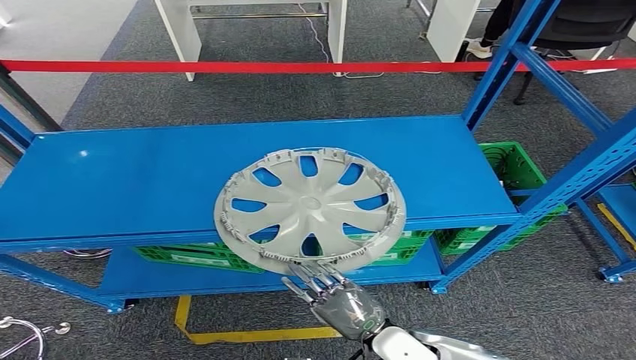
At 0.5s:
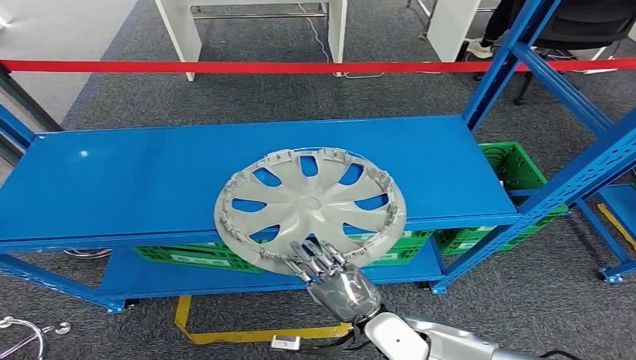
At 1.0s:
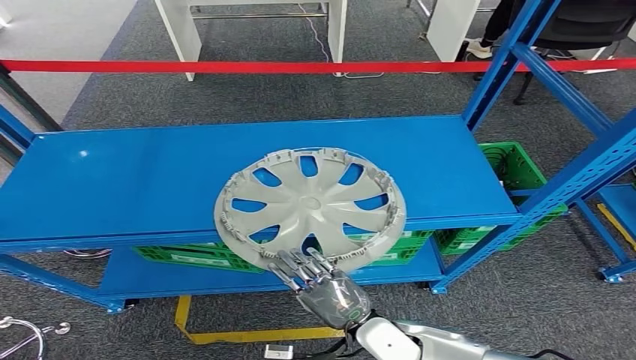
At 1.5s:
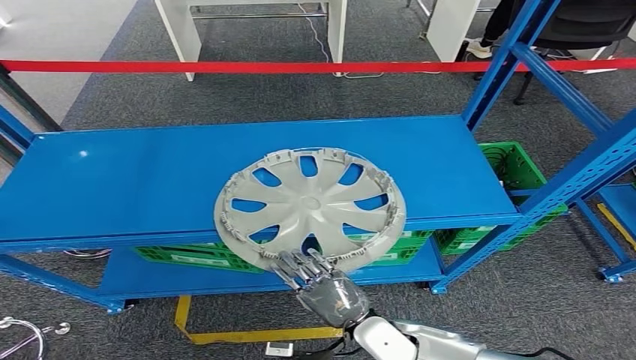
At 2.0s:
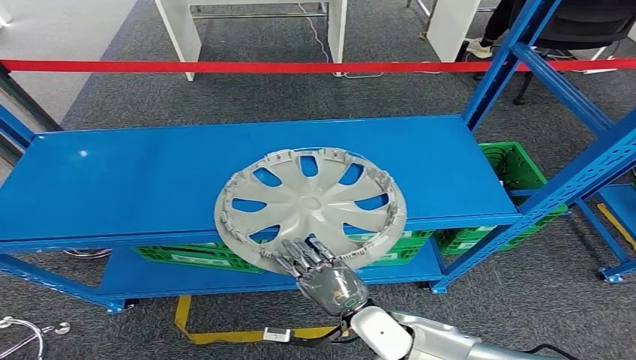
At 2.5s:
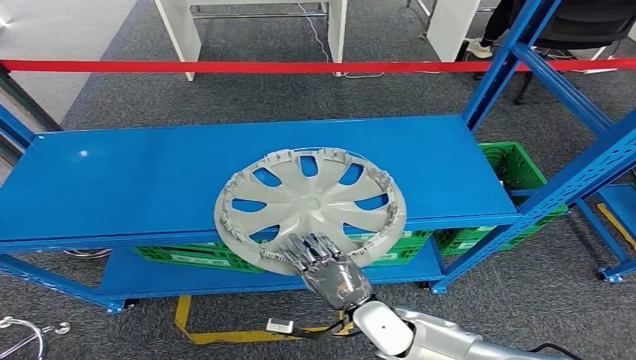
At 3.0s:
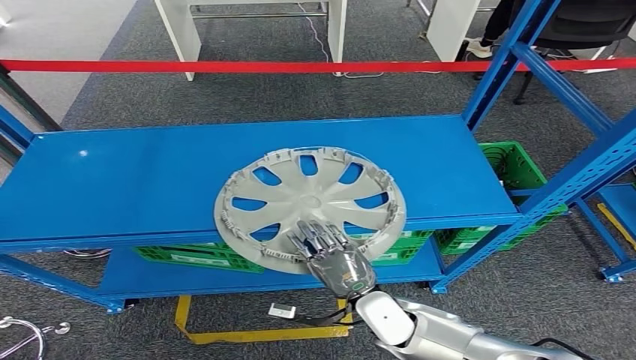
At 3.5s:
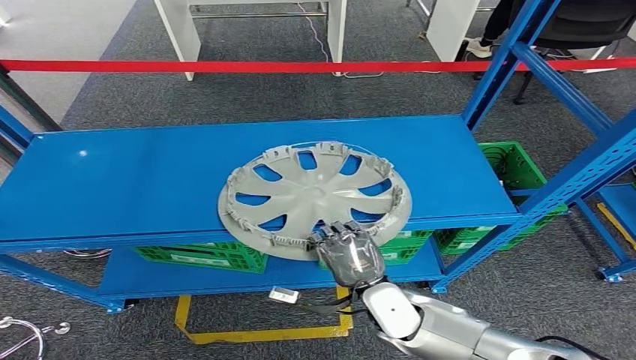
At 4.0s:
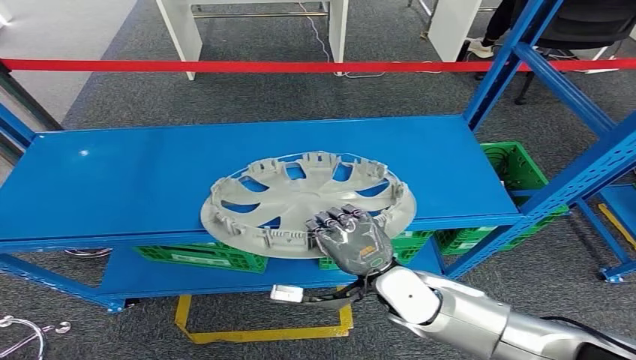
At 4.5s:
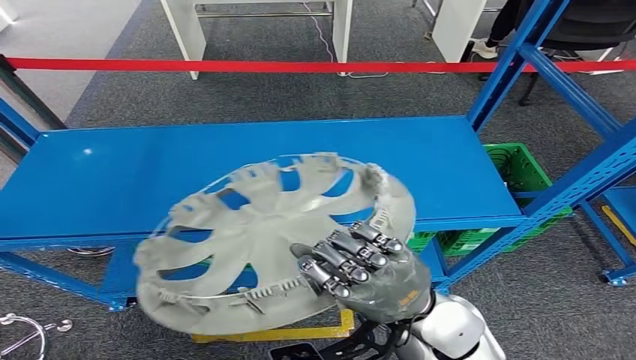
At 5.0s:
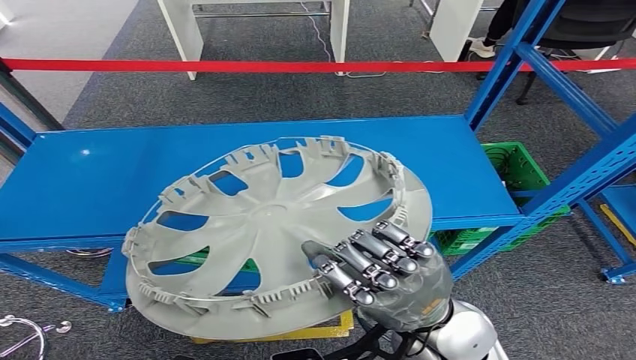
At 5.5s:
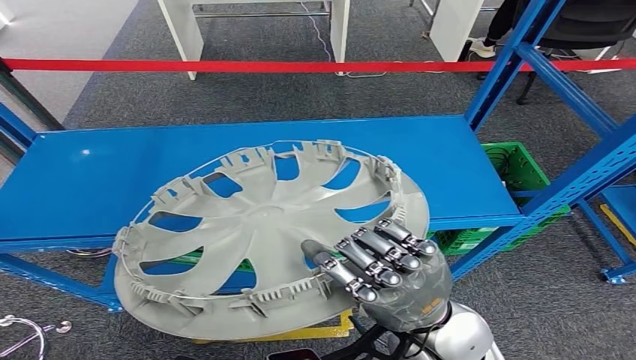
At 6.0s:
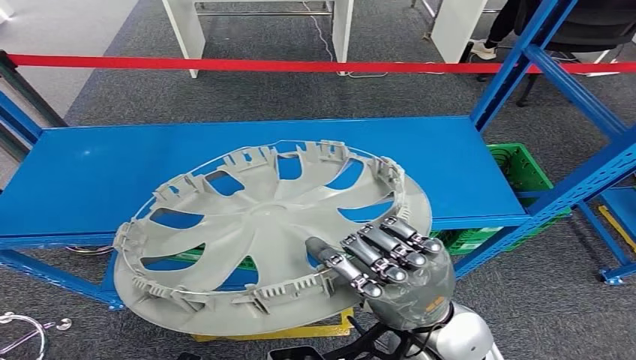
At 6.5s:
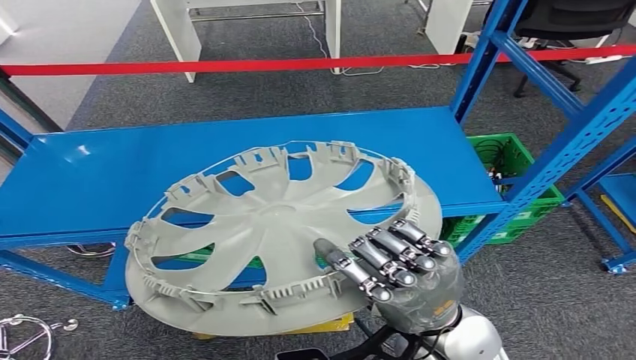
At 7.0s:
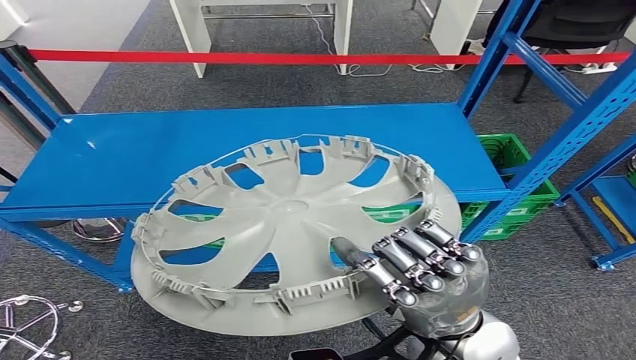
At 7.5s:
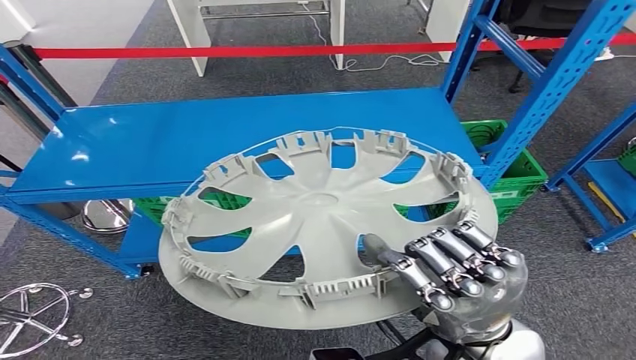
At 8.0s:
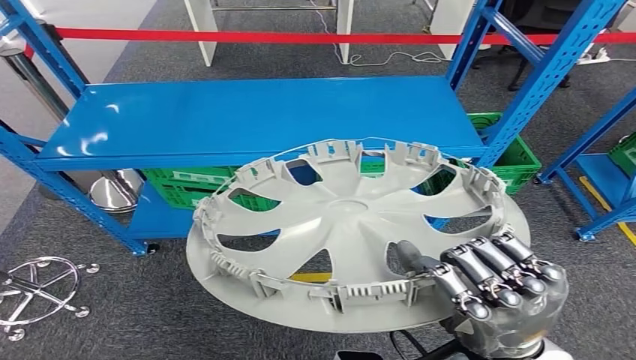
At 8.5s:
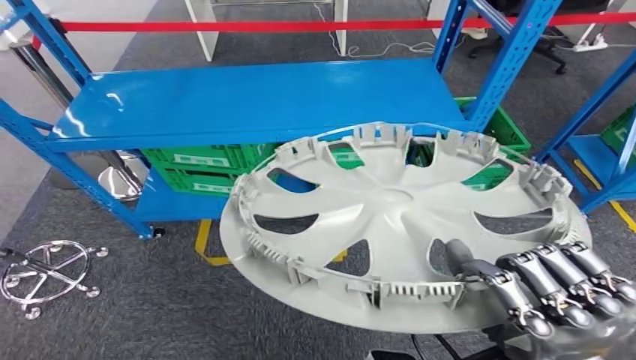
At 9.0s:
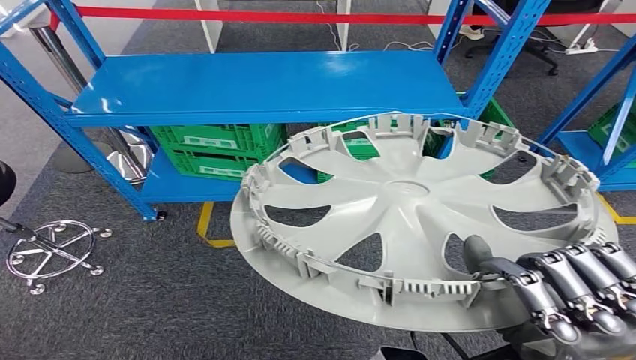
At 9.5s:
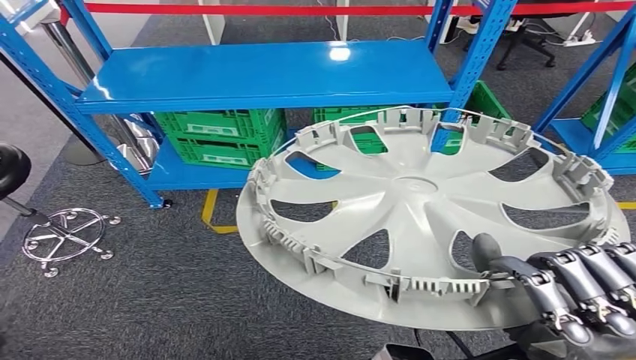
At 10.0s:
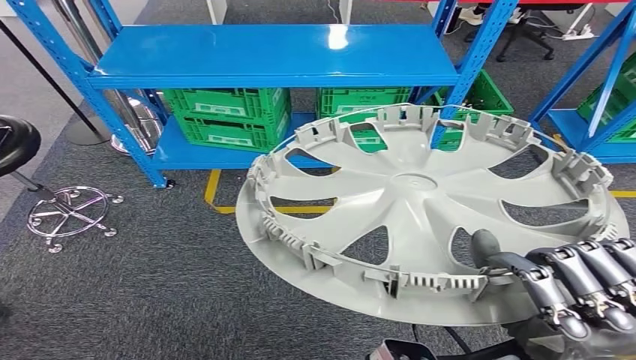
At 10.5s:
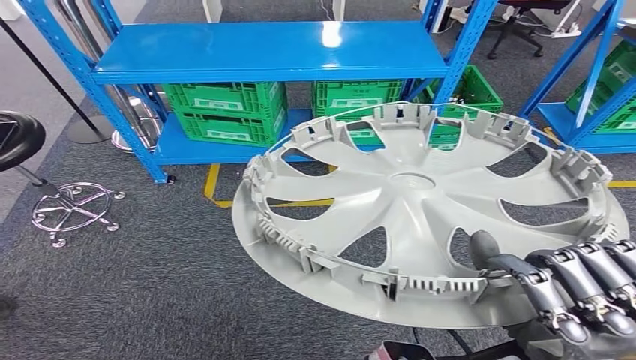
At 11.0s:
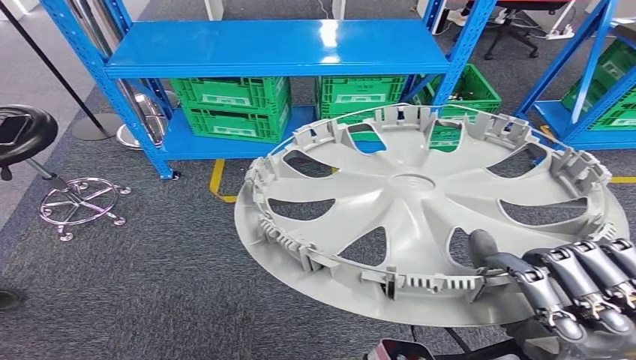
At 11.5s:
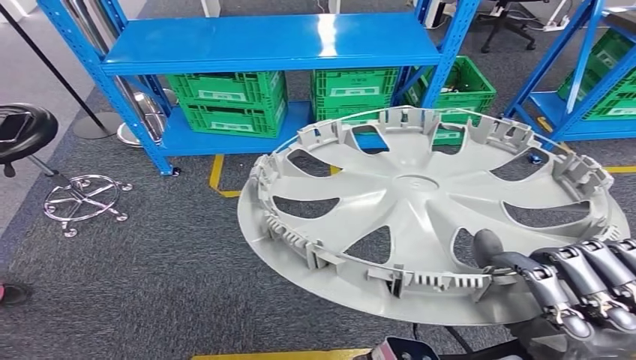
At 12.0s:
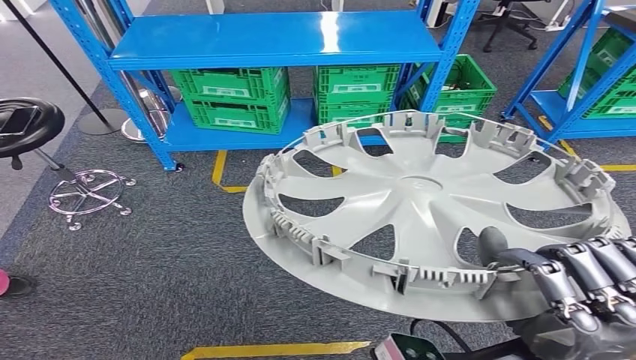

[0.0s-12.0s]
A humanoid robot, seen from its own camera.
Step, 0.0s to 5.0s: Take small components from the rack.
0.0s to 2.0s: The hands make only small movements.
2.0s to 4.0s: The right hand goes roughly 10 cm upward.

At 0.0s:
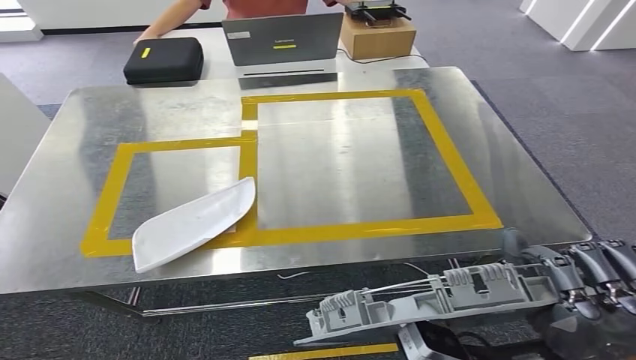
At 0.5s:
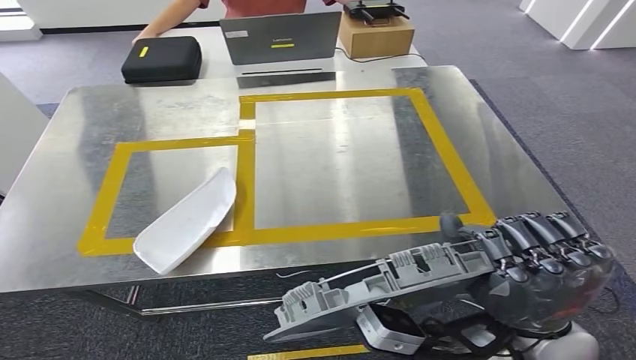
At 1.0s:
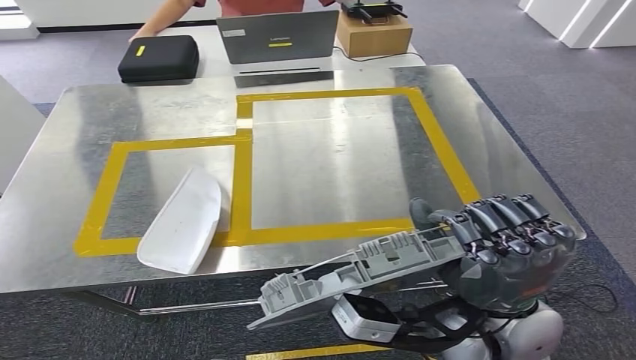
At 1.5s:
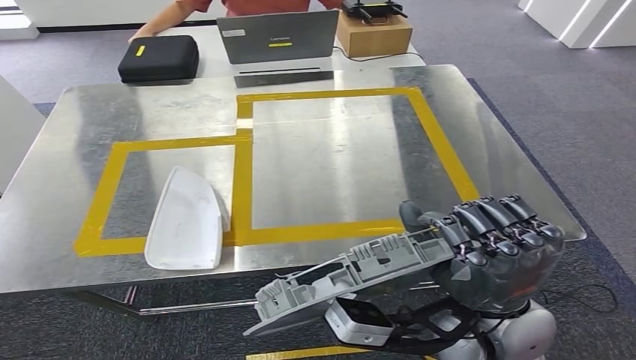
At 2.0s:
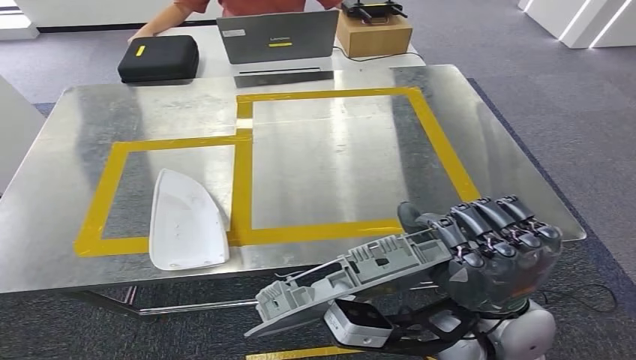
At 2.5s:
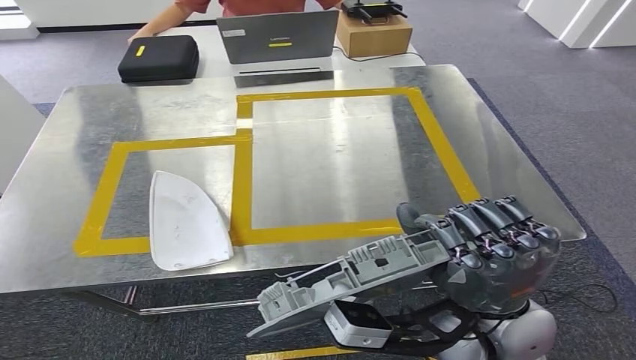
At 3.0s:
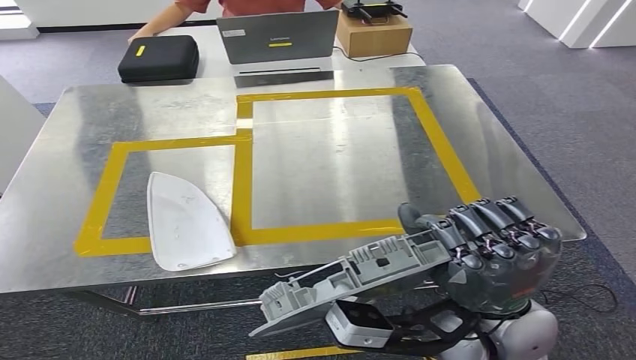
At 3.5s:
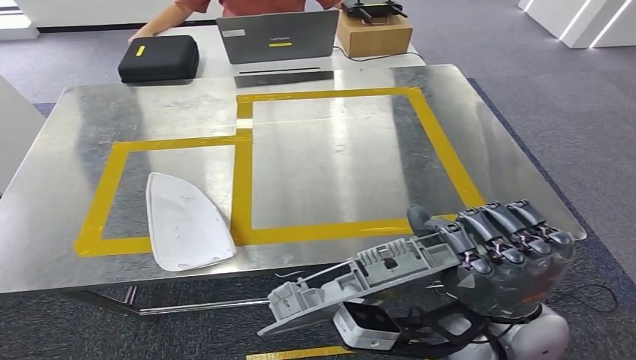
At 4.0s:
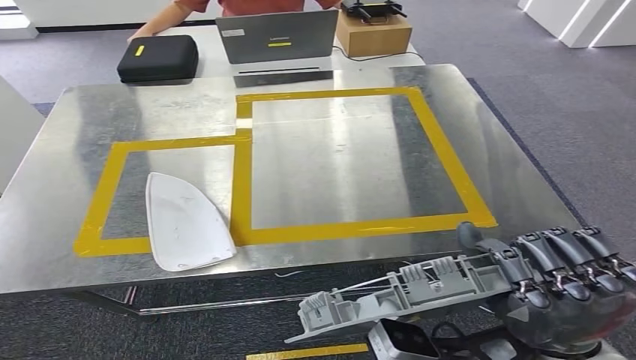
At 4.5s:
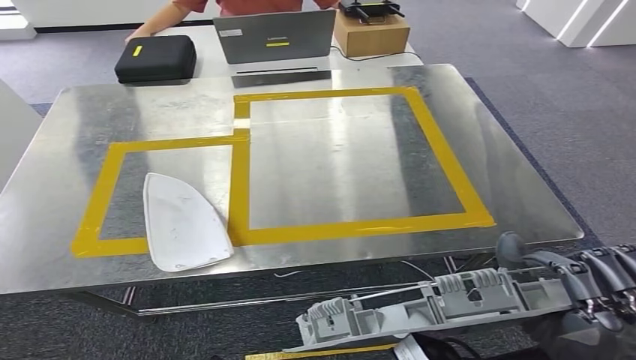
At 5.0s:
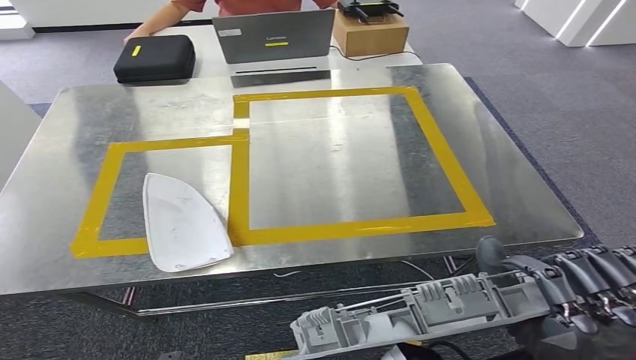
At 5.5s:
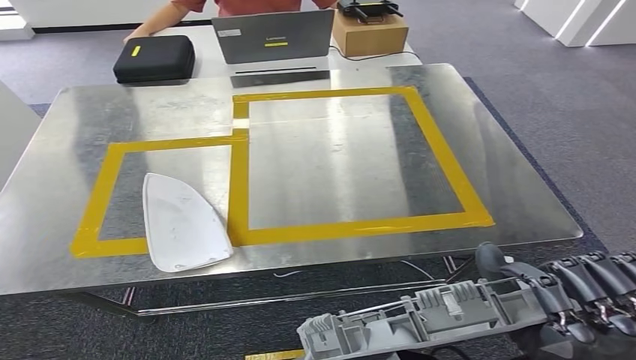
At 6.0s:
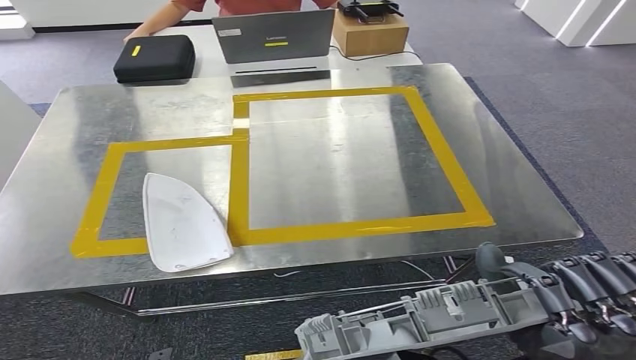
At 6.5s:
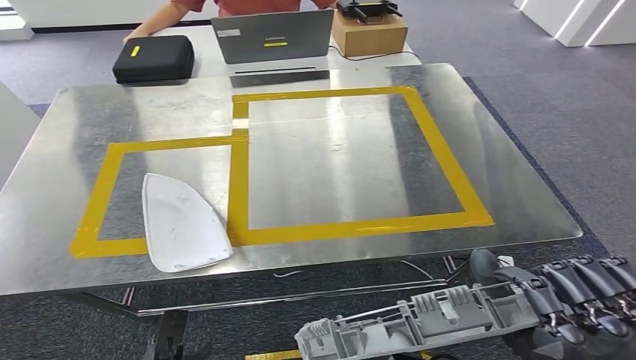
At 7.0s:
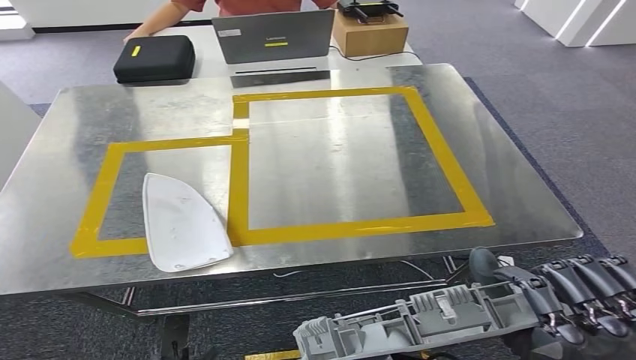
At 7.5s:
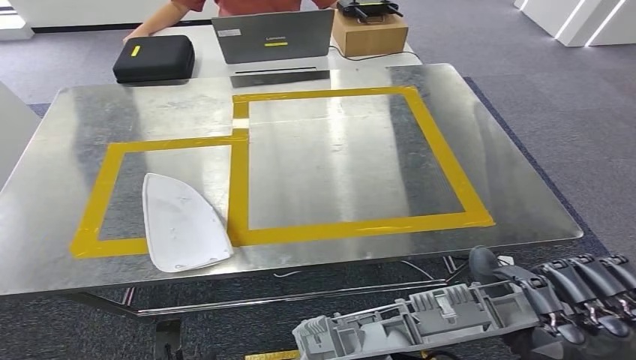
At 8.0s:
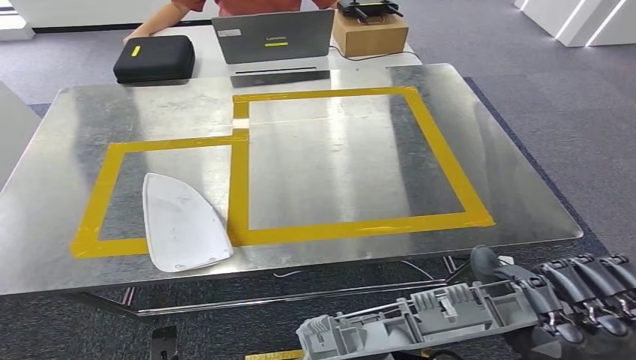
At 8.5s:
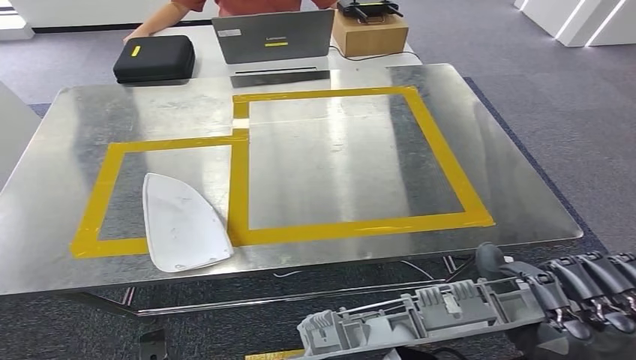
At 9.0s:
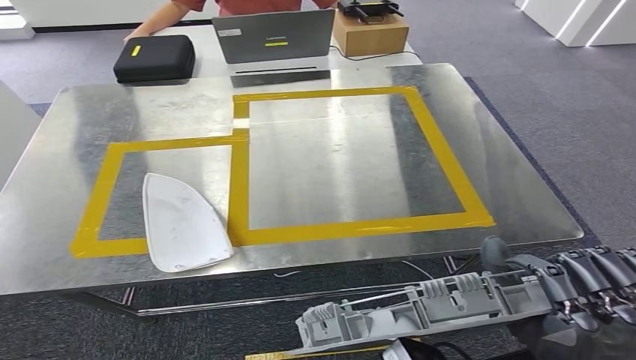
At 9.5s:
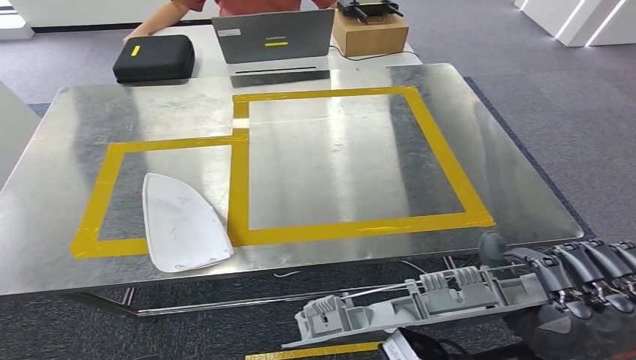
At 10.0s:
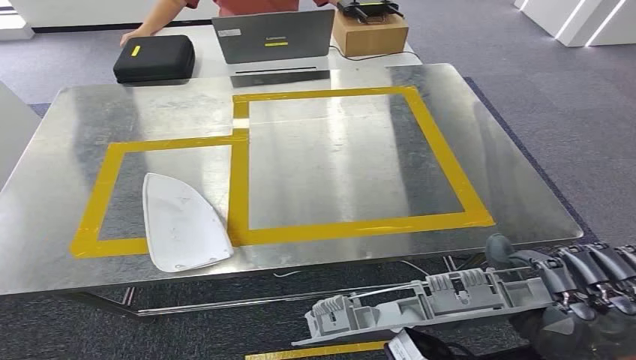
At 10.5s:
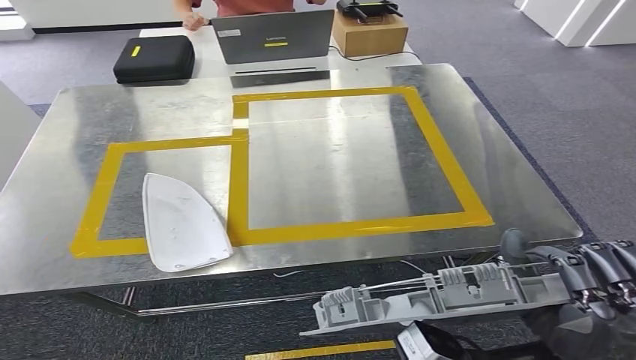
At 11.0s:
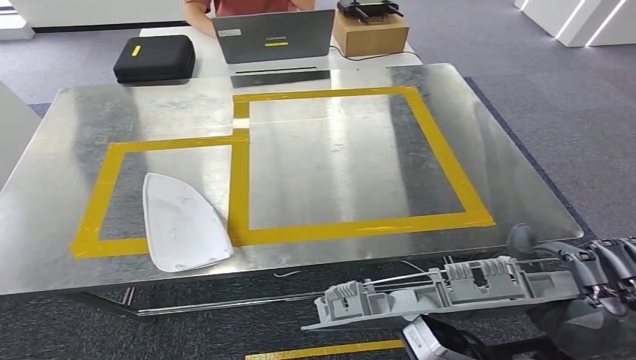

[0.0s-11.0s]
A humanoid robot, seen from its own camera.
2.0s to 3.5s: The hands make only small movements.
3.5s to 5.5s: The right hand travels backward by some 5 cm. The left hand travels to the left and backward by some 10 cm.
5.5s to 7.5s: The left hand travels forward by some 5 cm.
7.5s to 9.0s: The left hand moves backward, roughly 5 cm.
9.0s to 11.0s: The left hand is displaced backward by approximately 5 cm.
